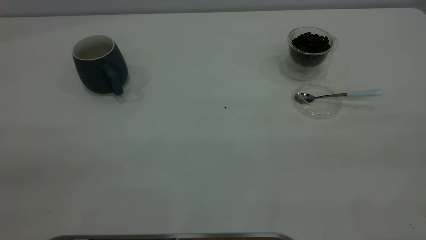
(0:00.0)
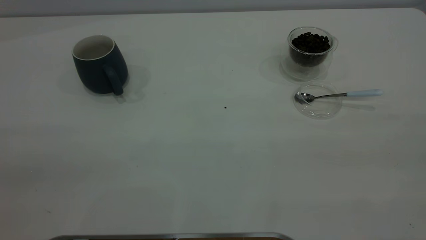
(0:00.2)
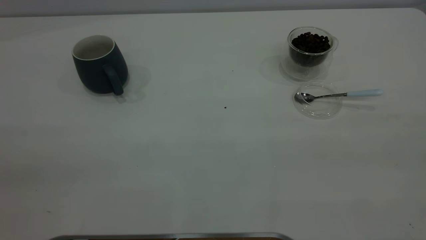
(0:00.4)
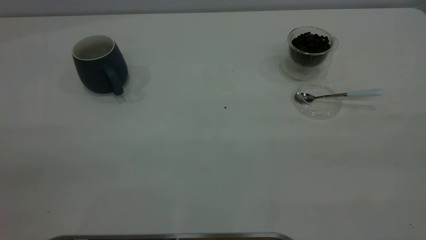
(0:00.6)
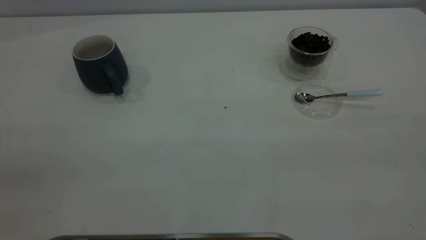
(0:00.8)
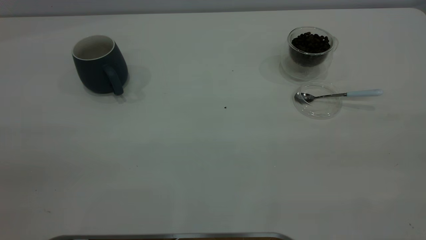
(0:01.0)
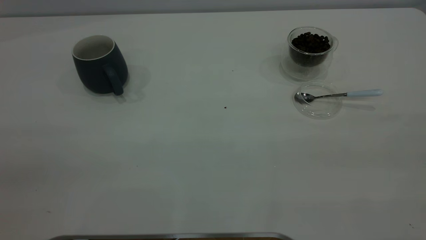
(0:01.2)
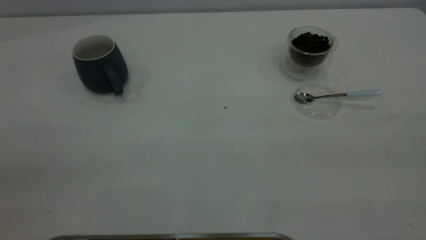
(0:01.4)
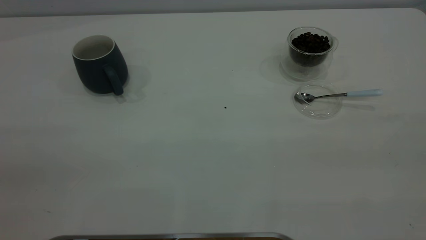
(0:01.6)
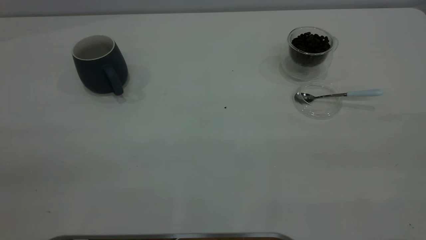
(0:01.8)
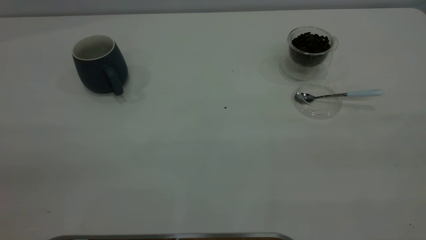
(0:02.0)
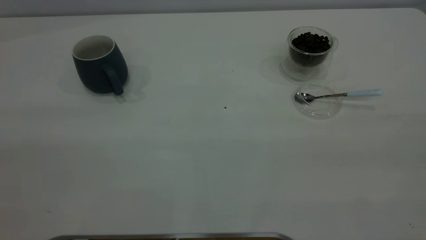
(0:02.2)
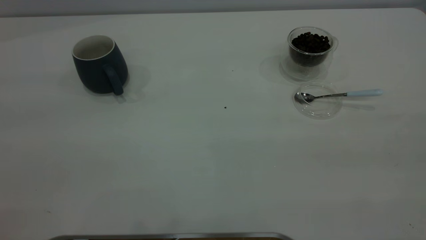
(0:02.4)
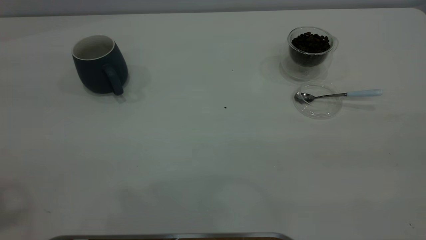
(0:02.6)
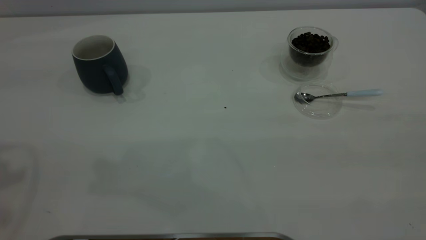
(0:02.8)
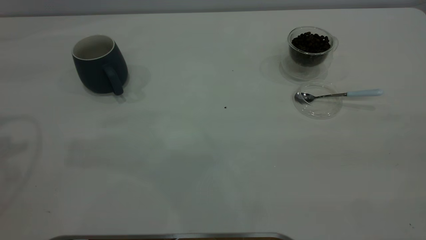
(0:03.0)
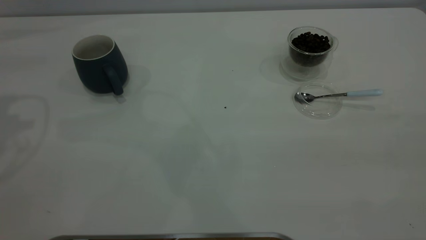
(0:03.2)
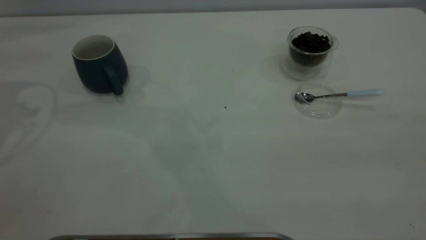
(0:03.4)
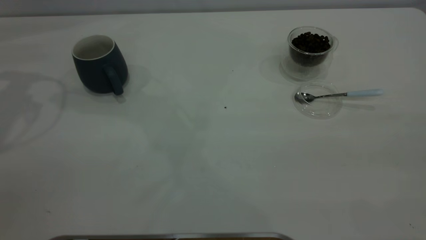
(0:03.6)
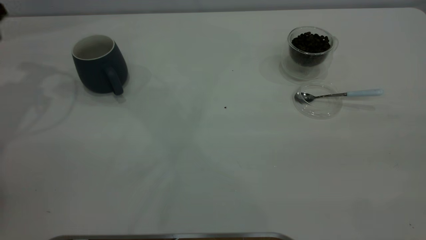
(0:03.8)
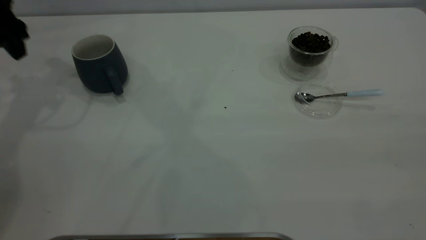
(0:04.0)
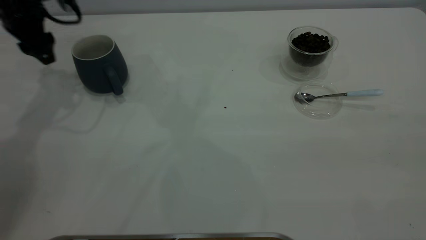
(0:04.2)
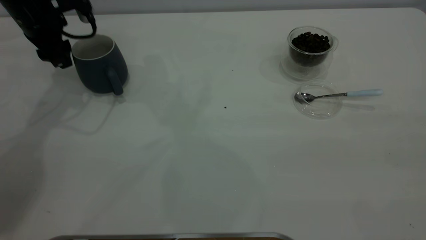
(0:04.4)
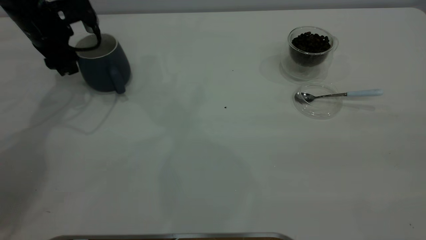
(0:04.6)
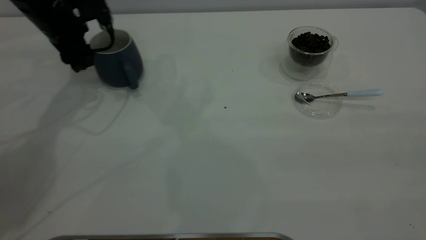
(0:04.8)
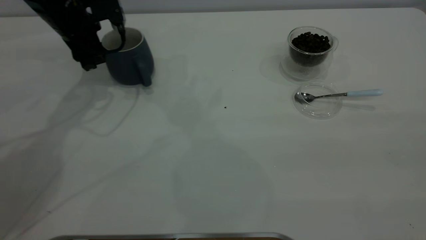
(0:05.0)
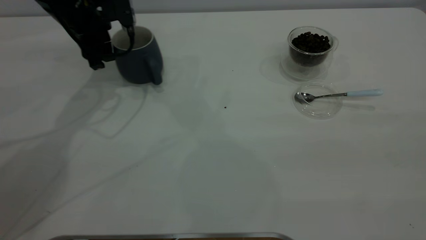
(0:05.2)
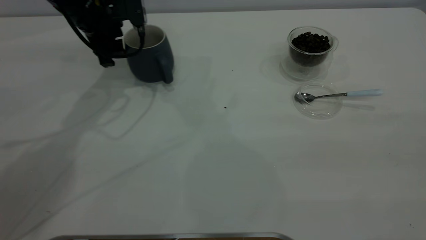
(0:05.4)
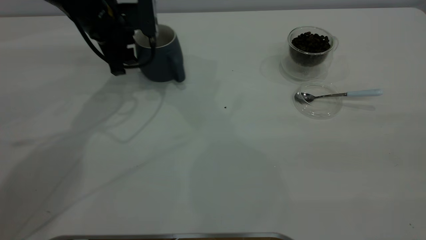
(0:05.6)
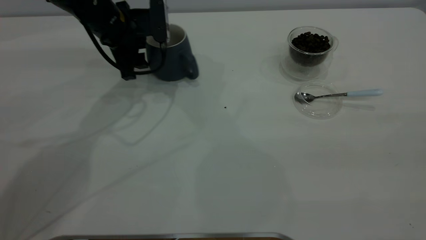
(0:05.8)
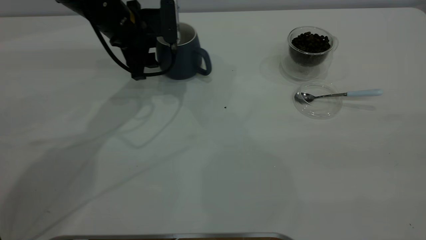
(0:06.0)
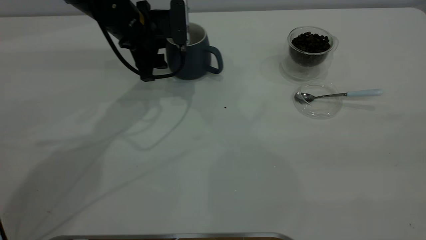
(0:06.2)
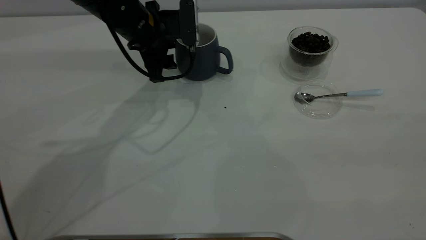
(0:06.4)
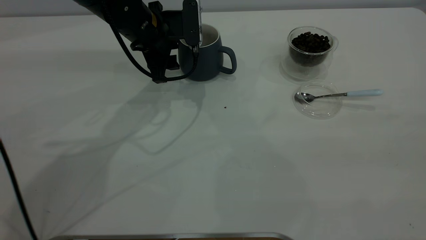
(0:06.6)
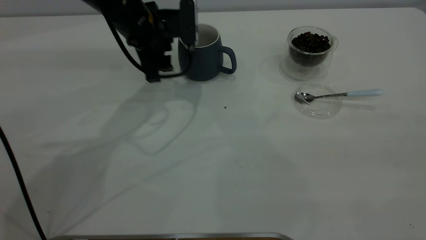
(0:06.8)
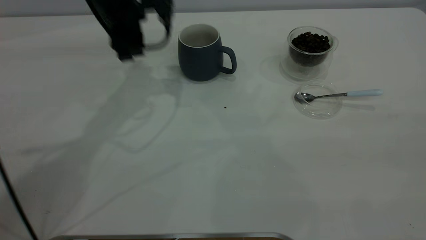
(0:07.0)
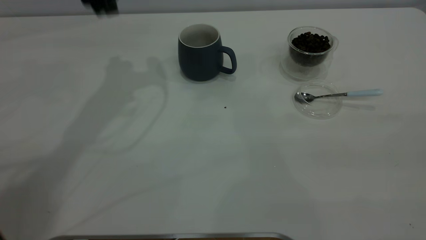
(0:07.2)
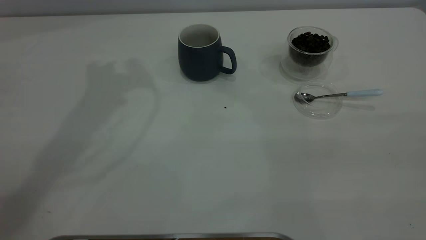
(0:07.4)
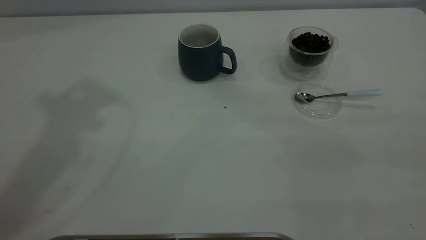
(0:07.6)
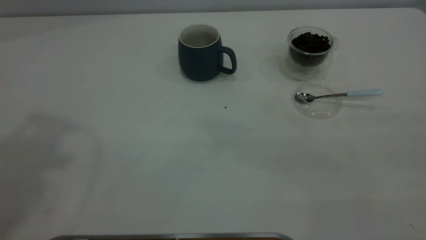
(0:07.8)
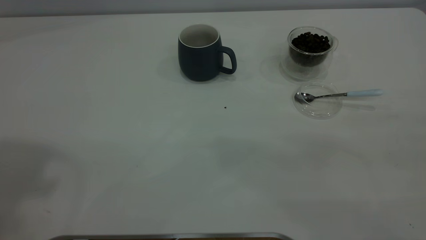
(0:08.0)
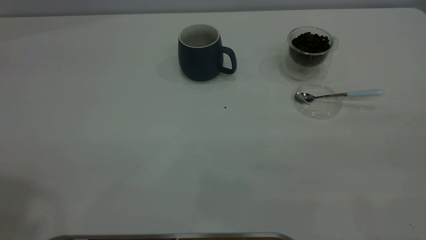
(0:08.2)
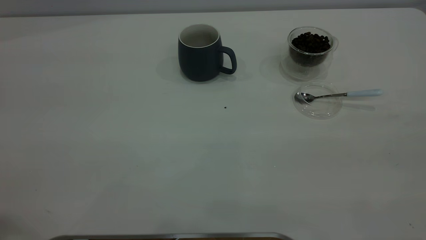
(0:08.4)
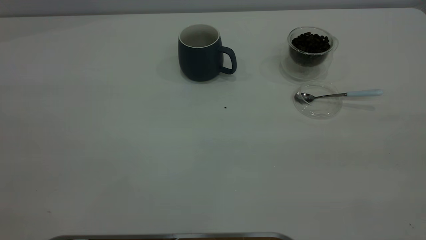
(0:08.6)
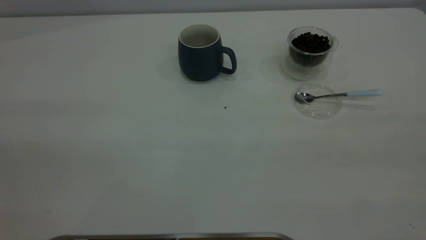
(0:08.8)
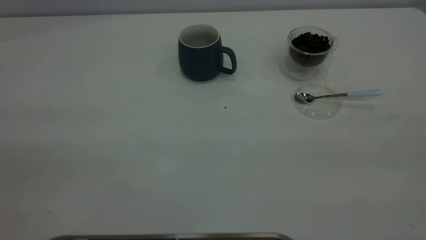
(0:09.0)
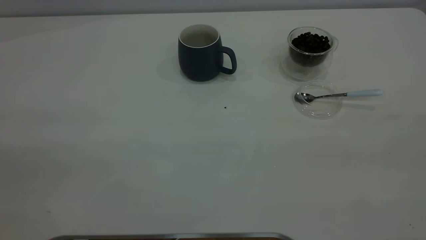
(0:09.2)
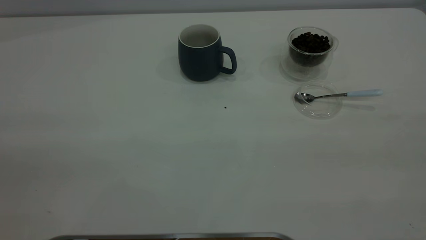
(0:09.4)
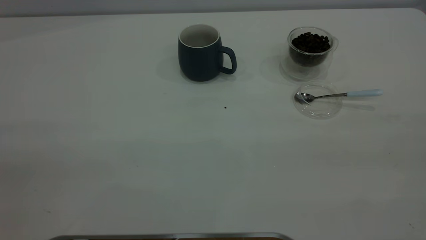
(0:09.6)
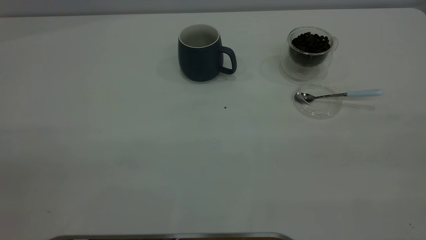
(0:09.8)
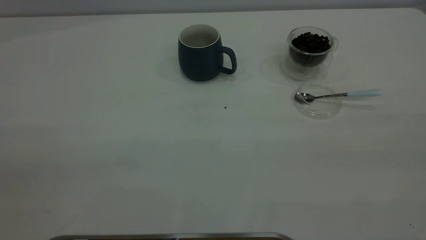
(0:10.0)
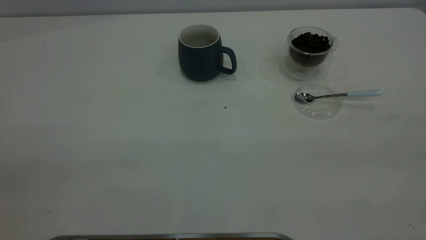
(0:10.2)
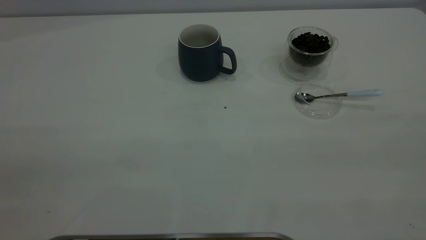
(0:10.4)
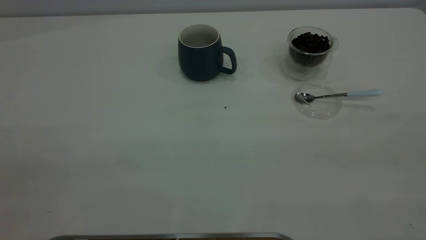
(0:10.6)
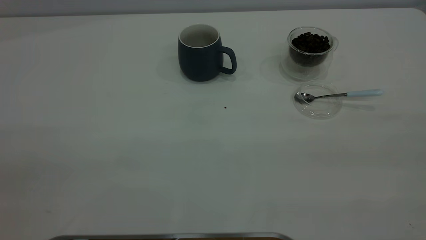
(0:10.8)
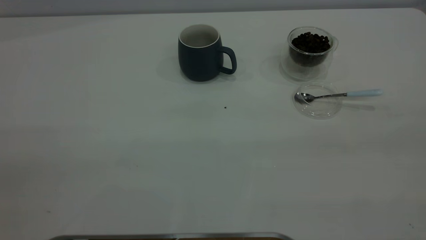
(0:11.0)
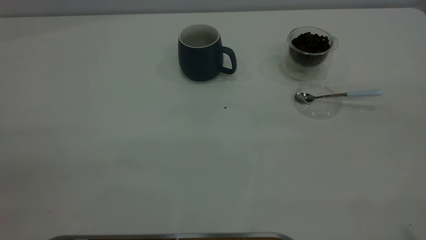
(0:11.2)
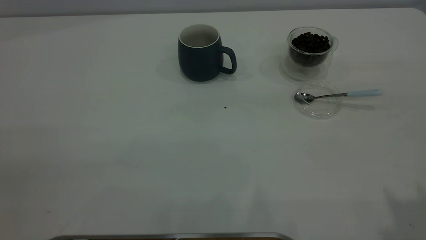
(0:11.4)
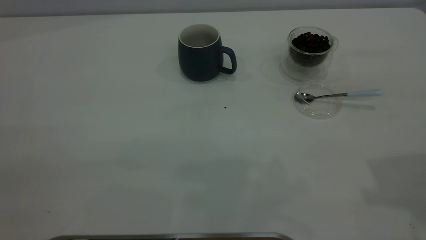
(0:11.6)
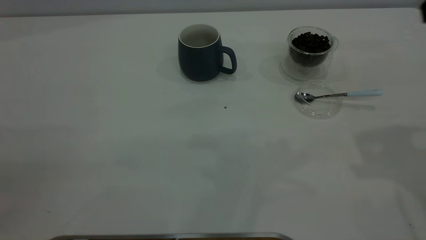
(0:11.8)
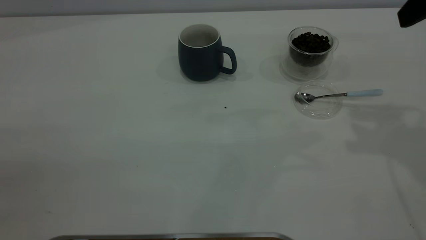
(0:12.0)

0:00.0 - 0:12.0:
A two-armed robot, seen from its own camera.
Task of the whole recording: the left gripper place the grey cup in the center of the table, the right gripper take the blue spoon from the cup lid and scoop out the coffee beans from the coffee cup and put them into the grey cup, the right gripper put the spoon back into the cup lid.
Step, 0:00.0 - 0:06.8: Move the cup to the center of view.
0:00.0 - 0:01.6: Neither gripper changes place.
0:03.0 - 0:04.4: The left gripper goes some 25 cm downward and forward.
0:04.4 - 0:06.0: The left gripper travels to the right by roughly 15 cm.
0:06.0 - 0:07.6: The left gripper moves upward, about 35 cm.

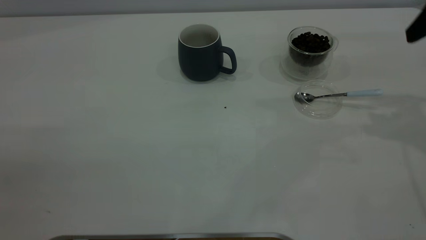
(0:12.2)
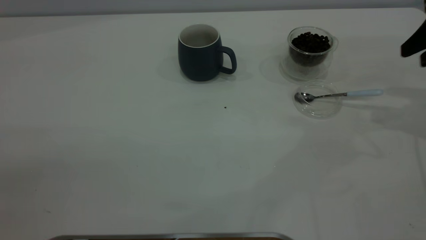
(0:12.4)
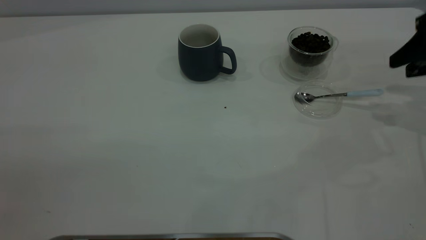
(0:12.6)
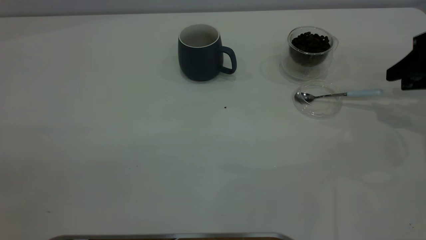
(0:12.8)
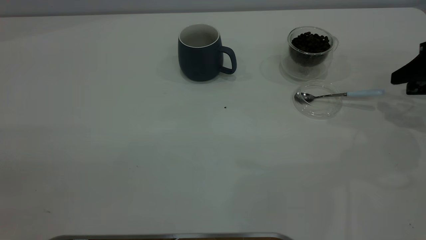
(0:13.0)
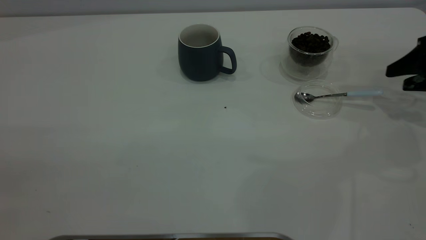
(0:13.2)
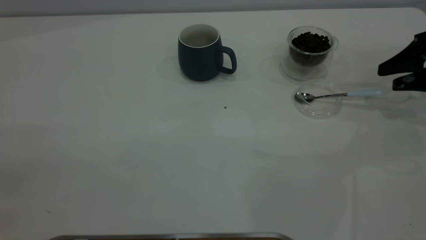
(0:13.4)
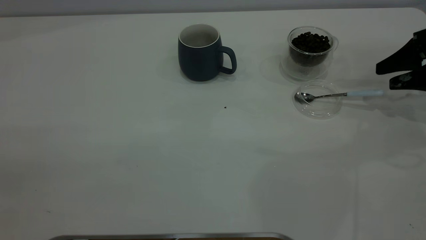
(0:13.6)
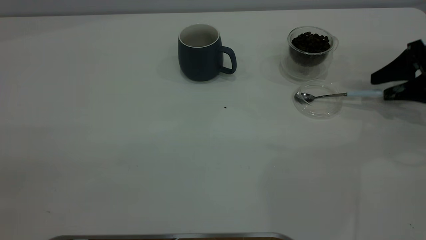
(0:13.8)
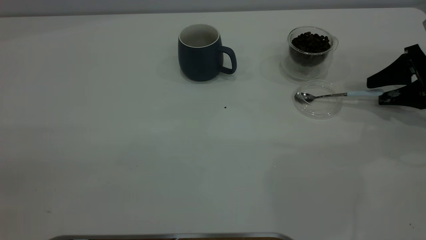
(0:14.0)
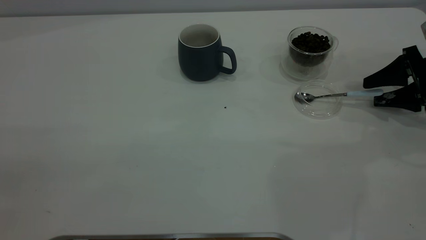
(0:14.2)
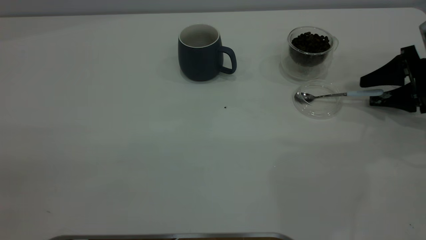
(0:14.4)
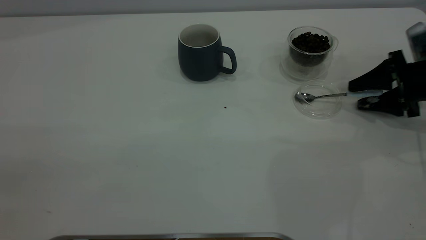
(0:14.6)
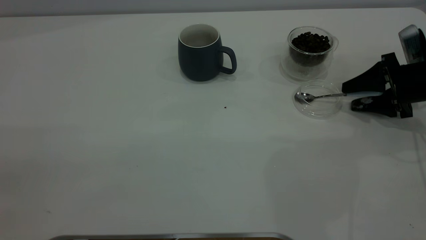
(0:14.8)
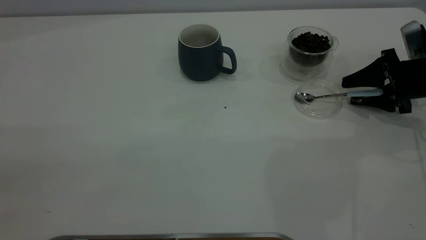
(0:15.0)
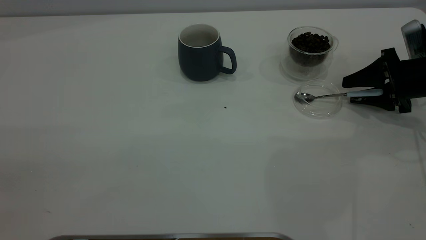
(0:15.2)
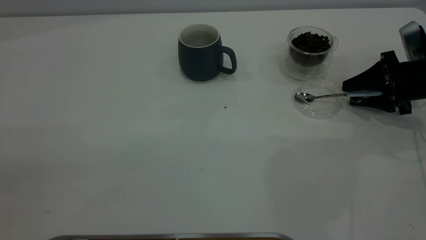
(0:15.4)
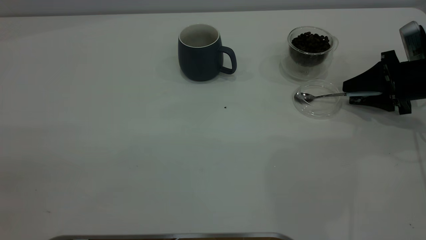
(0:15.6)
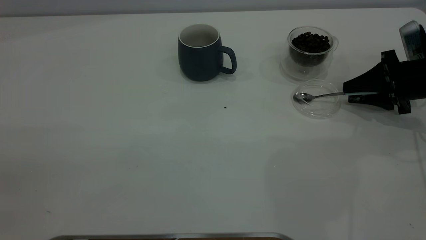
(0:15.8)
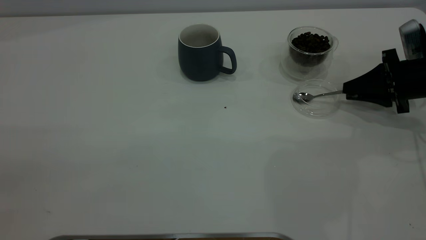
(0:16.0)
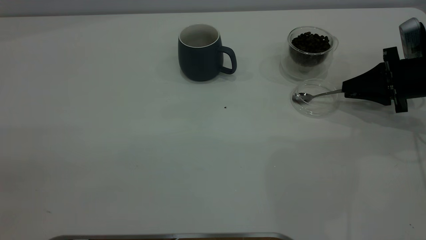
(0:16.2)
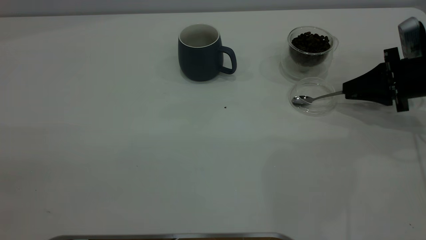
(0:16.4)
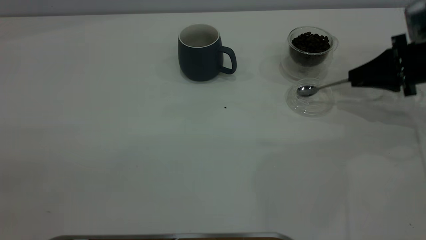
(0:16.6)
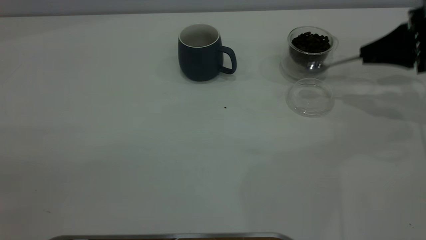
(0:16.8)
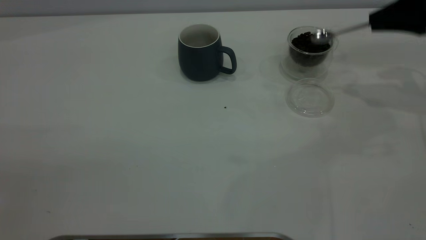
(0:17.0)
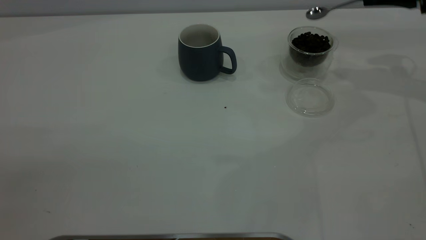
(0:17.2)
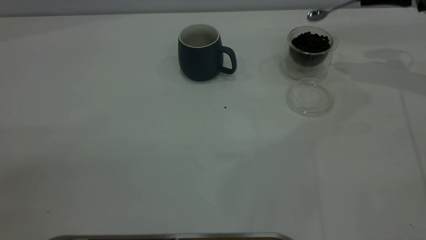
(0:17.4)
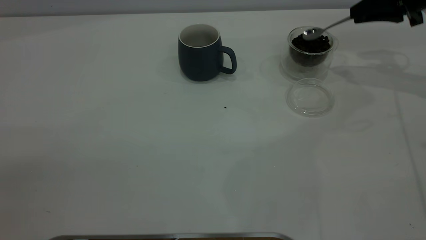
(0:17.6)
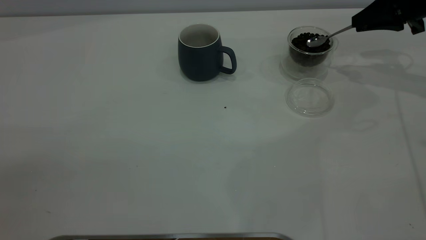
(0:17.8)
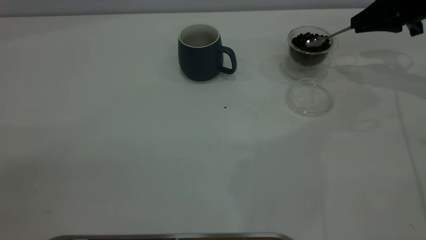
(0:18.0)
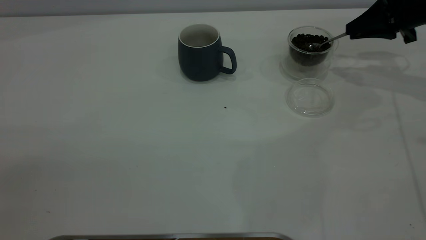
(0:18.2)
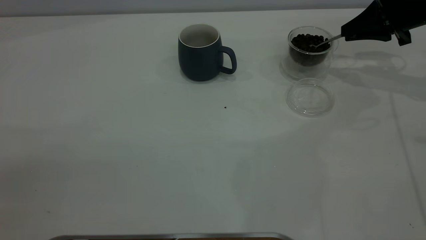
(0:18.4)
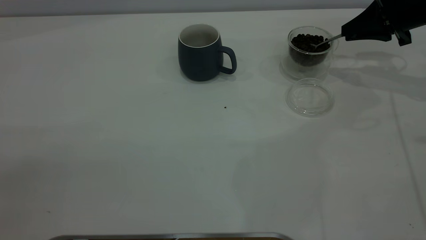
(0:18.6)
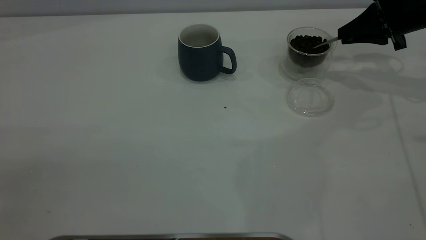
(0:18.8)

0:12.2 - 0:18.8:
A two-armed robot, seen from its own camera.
Task of the whole recording: the left gripper place the grey cup in the center of the table, the right gripper take the blue spoon from the cup lid and scoop out the coffee beans from the coffee cup and put them into the grey cup, the right gripper put the spoon back into the cup lid.
Step, 0:12.2 - 0:16.6: Pick up the spoon.
0:12.2 - 0:13.8: The right gripper heads downward, covering some 15 cm.
0:13.8 - 0:15.4: The grippers make only small movements.
0:15.4 - 0:17.2: The right gripper travels upward and forward by about 15 cm, and closes up.
0:17.2 - 0:18.8: The right gripper travels downward by roughly 5 cm.
